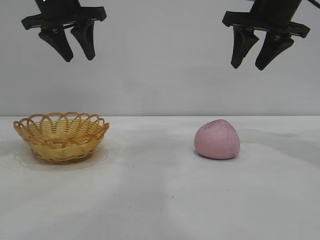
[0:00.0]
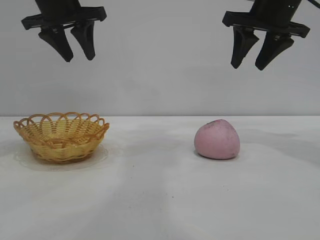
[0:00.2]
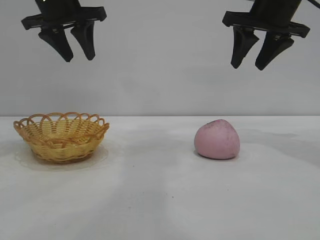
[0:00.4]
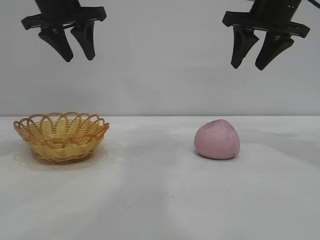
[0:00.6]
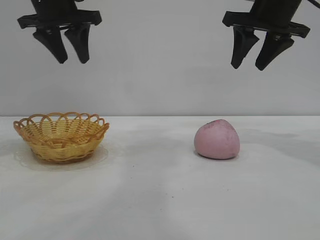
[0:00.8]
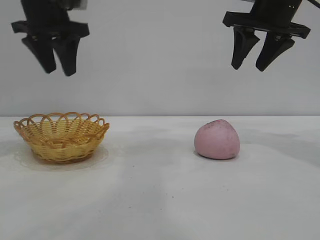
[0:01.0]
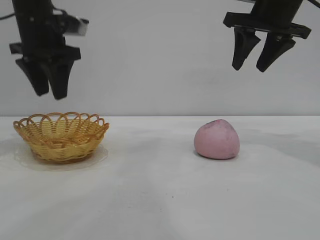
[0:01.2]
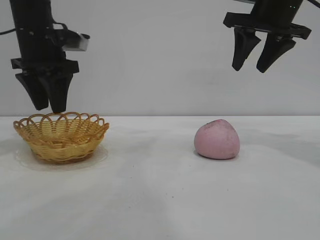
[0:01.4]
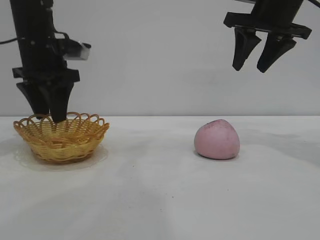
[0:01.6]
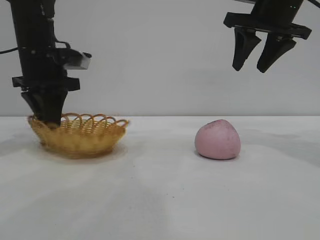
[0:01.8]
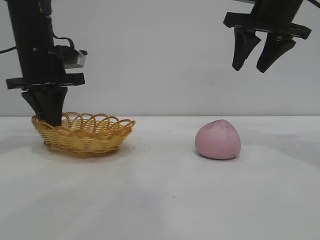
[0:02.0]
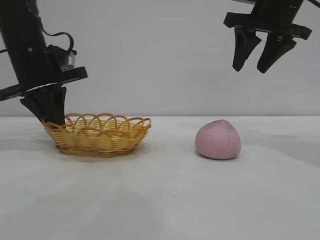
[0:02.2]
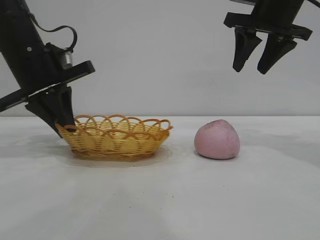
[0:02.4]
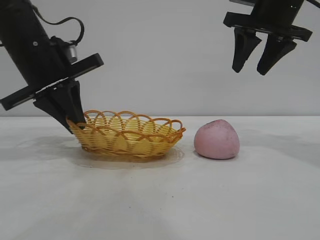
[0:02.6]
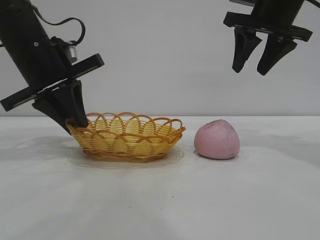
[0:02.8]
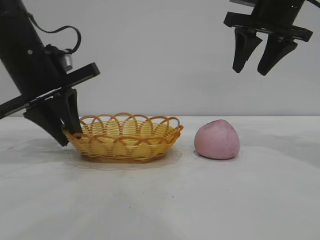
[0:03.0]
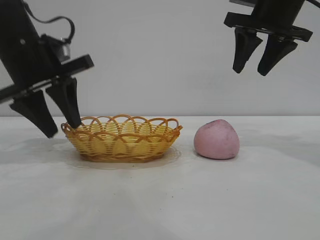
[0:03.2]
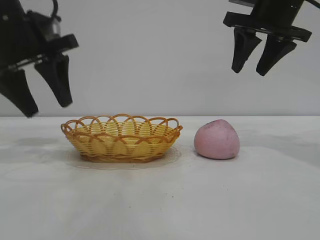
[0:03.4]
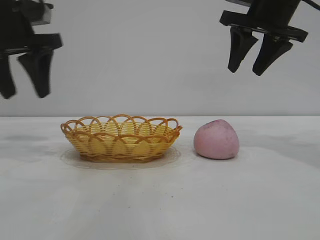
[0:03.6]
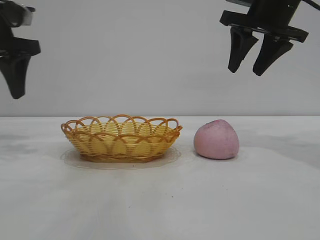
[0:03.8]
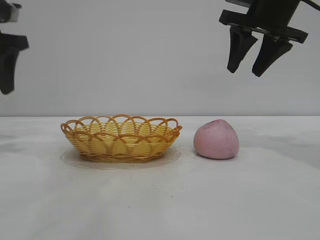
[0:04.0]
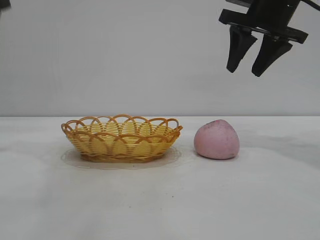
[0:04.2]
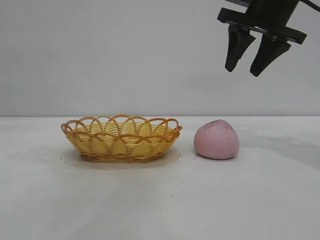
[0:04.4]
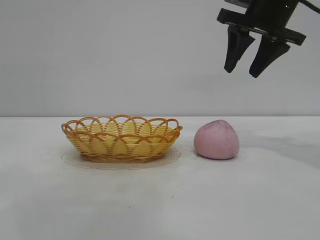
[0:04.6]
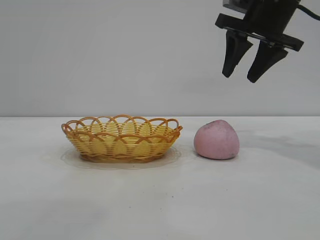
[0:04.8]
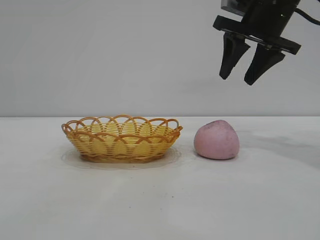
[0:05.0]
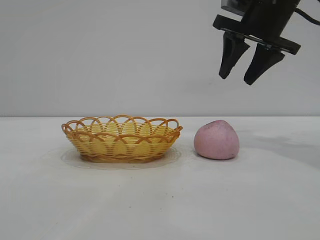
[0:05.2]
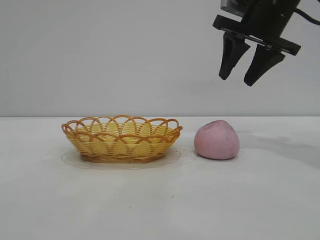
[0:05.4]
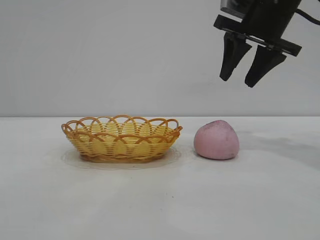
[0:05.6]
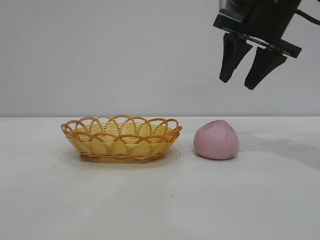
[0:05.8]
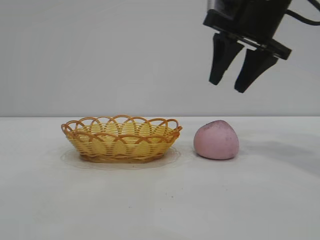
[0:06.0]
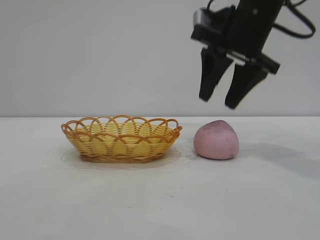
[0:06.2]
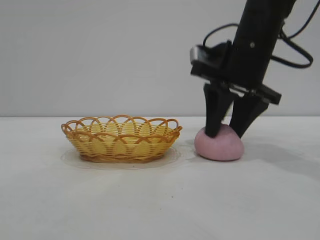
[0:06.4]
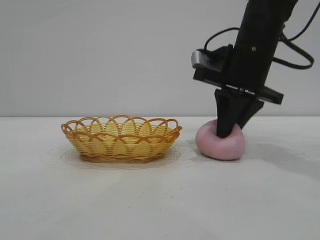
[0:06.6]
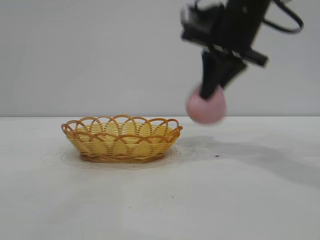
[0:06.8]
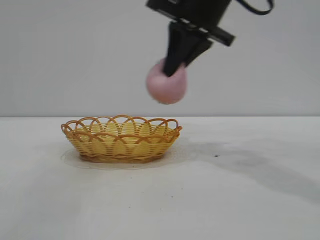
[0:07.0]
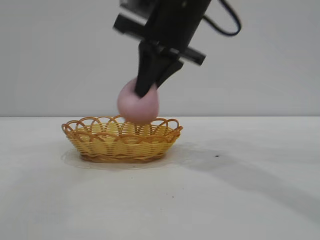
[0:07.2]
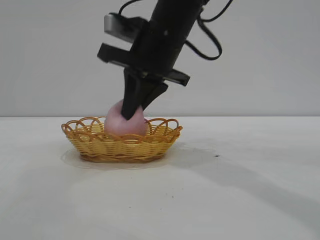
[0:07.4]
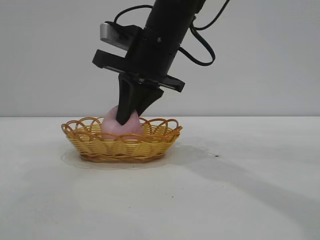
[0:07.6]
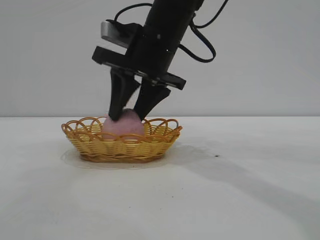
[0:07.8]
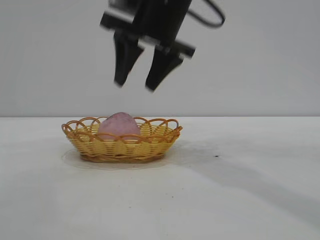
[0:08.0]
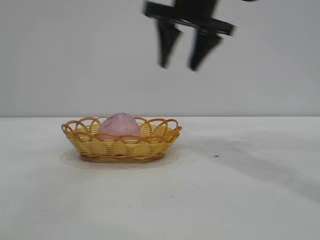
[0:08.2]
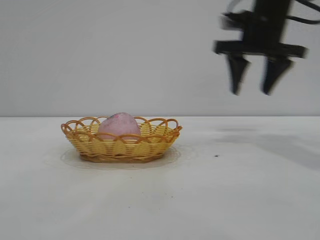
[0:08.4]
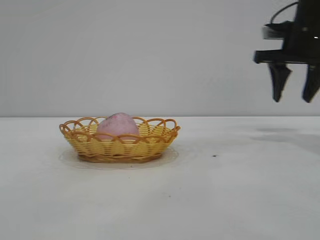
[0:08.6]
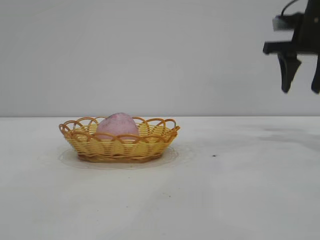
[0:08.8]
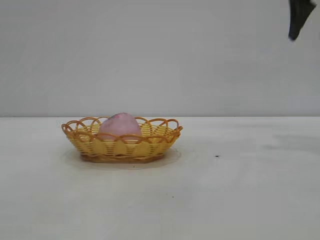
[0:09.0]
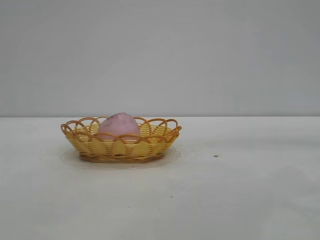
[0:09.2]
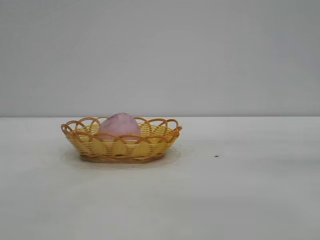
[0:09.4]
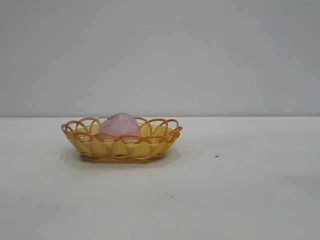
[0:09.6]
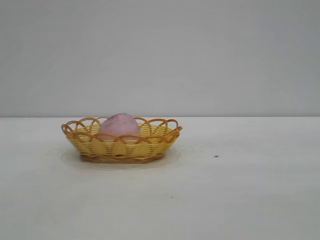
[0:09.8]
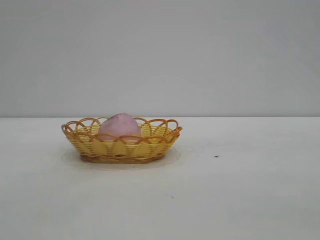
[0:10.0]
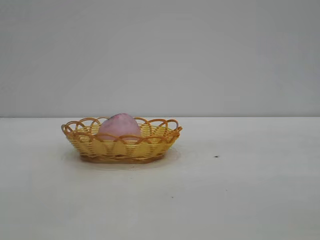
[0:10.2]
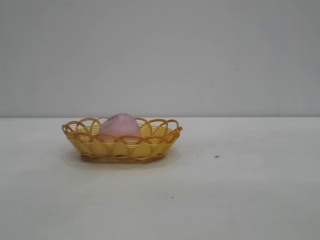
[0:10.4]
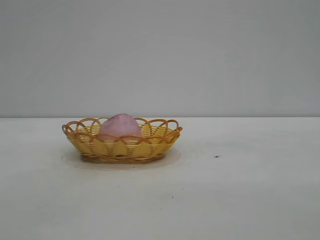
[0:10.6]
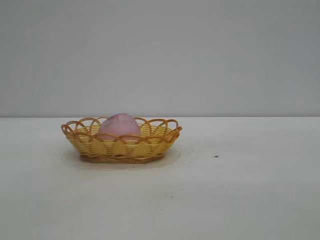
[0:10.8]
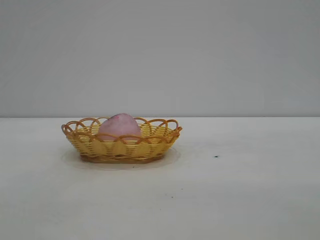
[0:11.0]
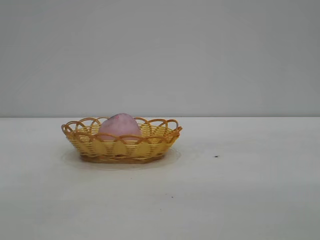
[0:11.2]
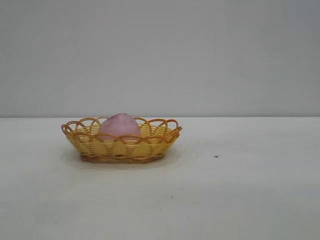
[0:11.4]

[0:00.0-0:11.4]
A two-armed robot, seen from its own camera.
Task of the whole recording: pick up the peach and put it into the basket.
Step, 0:00.0 to 0:03.2: Move the basket to the center of view.
Step, 0:03.4 to 0:06.6: Pick up the peach.
Step, 0:07.0 to 0:08.0: place the peach into the basket.
